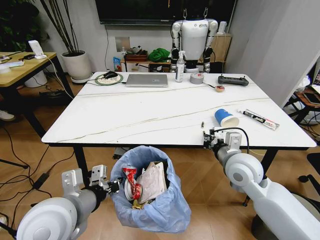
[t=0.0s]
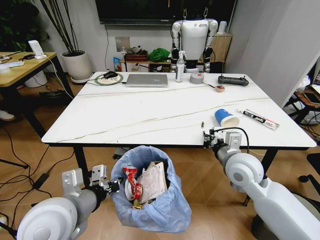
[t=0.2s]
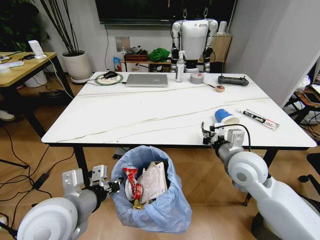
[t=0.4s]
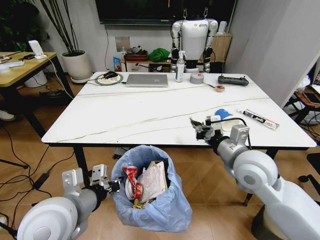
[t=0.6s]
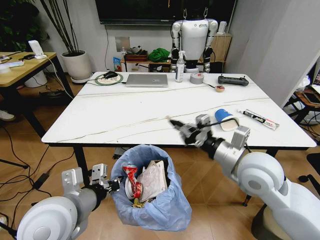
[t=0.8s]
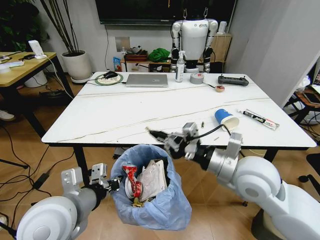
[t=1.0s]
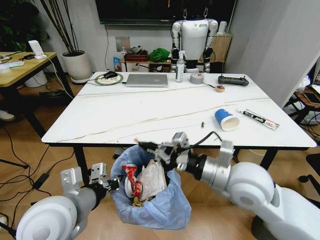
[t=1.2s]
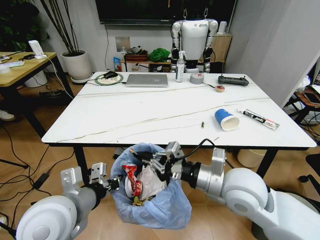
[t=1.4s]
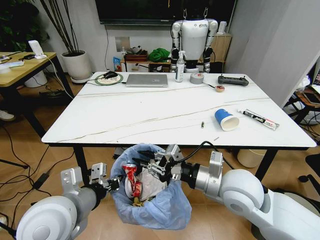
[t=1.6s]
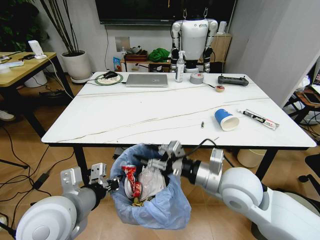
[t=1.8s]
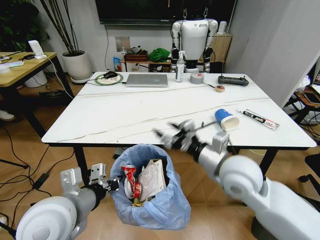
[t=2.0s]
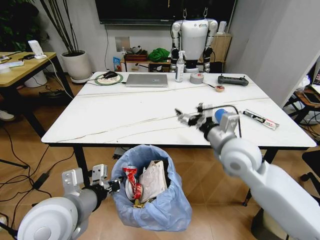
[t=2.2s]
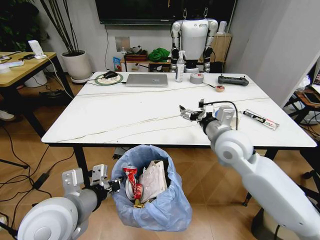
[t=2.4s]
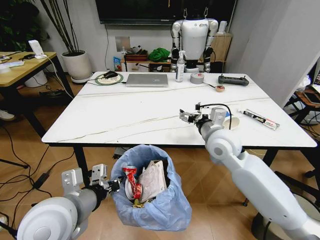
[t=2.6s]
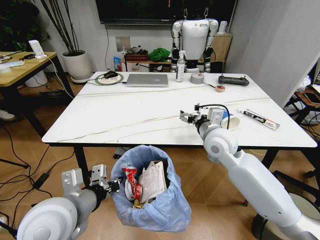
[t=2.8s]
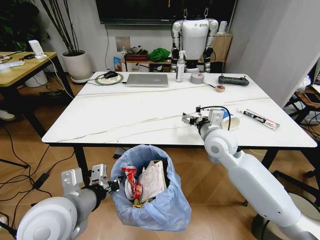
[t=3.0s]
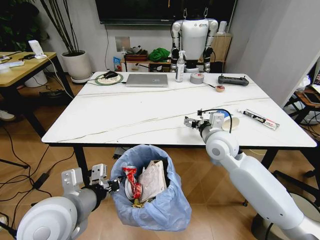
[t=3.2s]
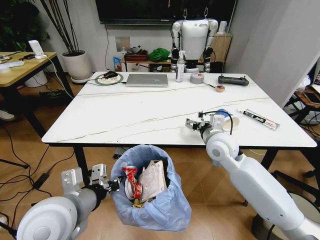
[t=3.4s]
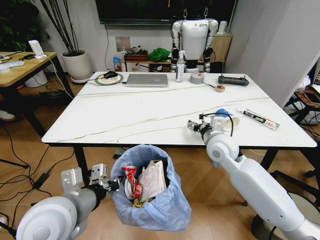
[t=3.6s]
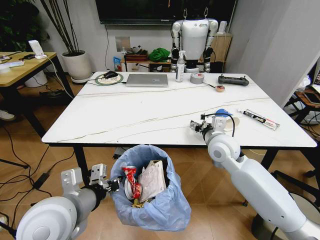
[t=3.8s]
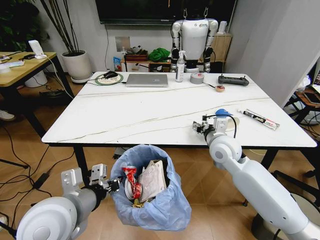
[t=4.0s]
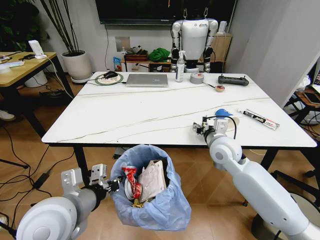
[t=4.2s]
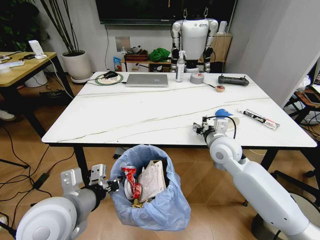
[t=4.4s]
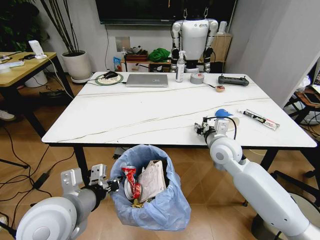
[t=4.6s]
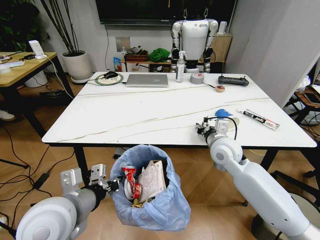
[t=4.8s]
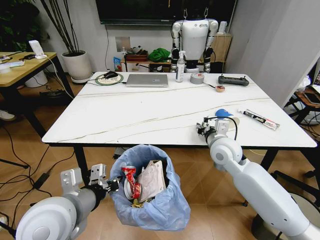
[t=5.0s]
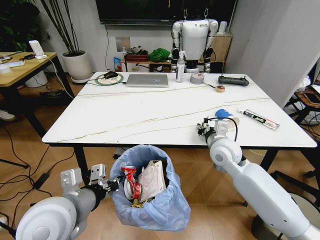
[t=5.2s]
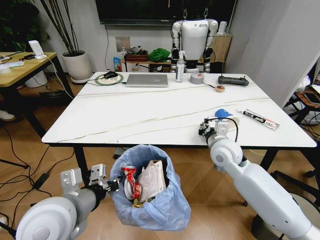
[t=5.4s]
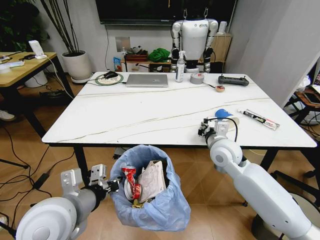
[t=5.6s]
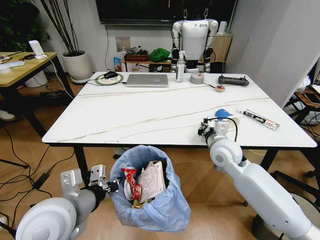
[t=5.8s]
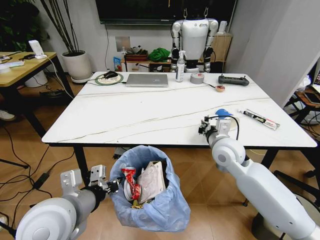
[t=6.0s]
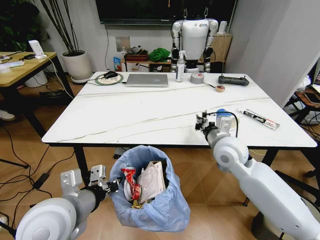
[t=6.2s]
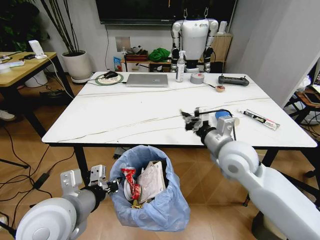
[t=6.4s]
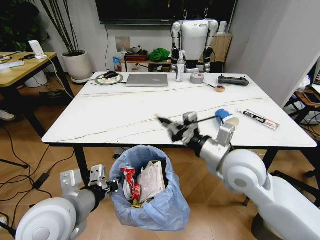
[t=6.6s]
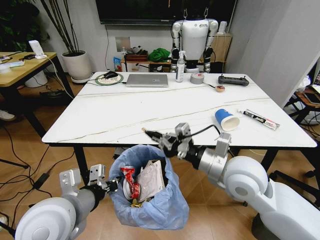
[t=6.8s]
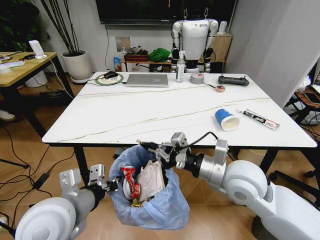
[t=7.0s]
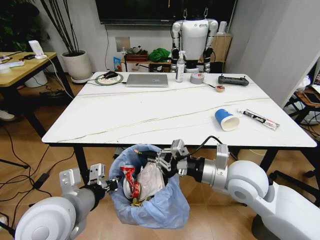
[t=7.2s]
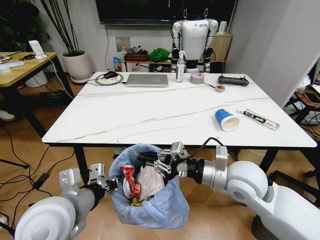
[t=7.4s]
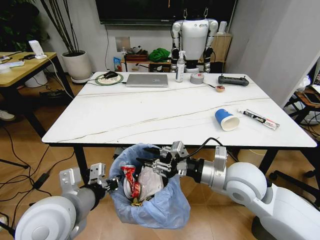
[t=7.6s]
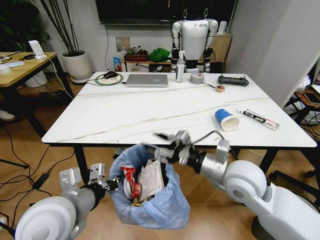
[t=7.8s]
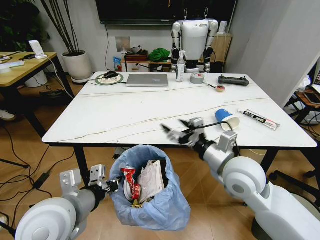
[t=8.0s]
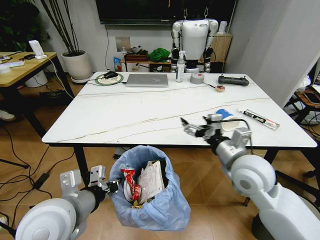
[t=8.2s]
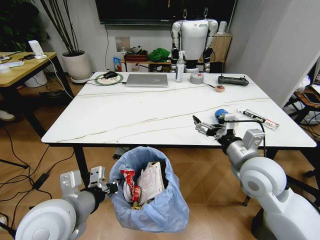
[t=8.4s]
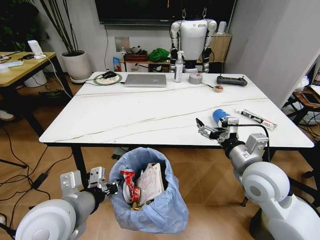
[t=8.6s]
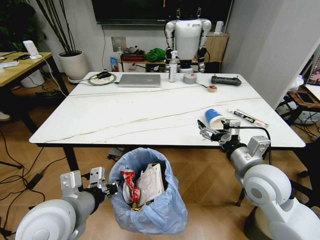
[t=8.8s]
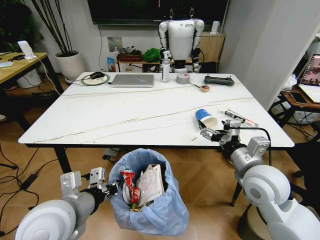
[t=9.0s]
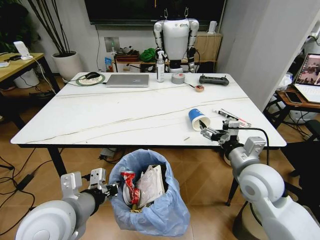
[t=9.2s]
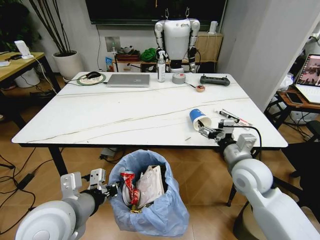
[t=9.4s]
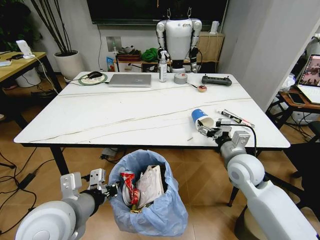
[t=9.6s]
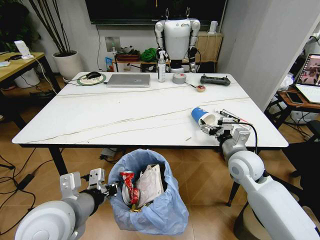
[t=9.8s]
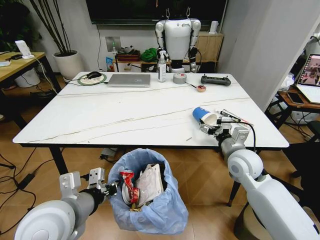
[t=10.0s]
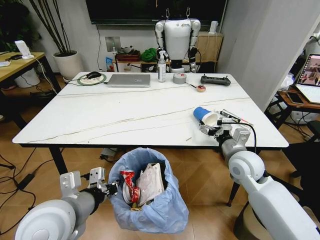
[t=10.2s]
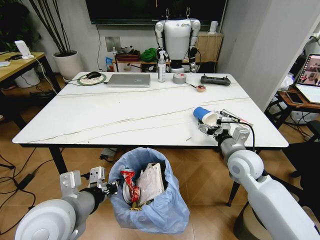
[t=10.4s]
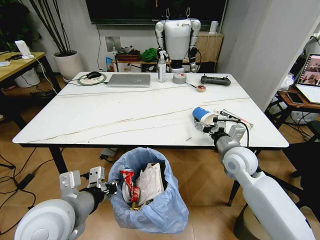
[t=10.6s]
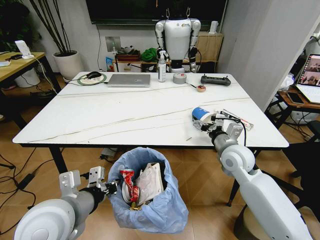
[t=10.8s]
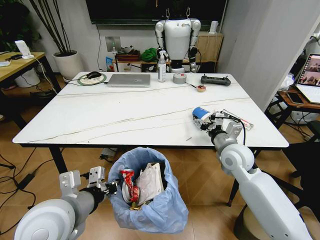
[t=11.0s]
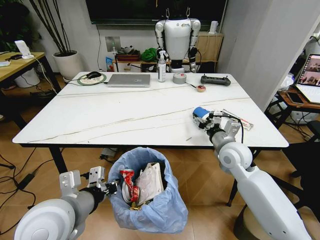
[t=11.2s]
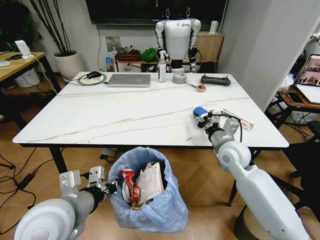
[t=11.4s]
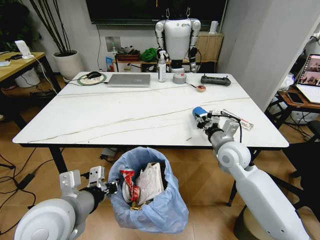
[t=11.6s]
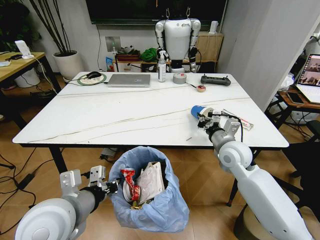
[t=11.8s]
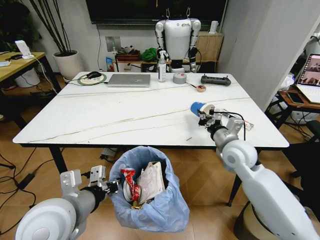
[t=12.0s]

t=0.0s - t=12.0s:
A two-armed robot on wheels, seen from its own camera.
Task of the whole recording: Pick up the trash bin and place the trash from the table into it.
t=0.0s - t=1.6s: The right gripper shifts some 5 cm backward.
t=1.6s - t=3.0s: The right gripper goes some 15 cm forward, and opens.
t=3.0s - t=4.4s: The right gripper closes up.
t=4.4s - t=6.0s: The right gripper closes up.
t=6.0s - t=7.6s: The right gripper heads backward, covering roughly 10 cm, and opens.
t=7.6s - t=9.0s: The right gripper travels to the right by some 5 cm, and opens up.
t=9.0s - t=10.4s: The right gripper shifts some 10 cm forward.
t=10.4s - t=12.0s: The right gripper closes up.

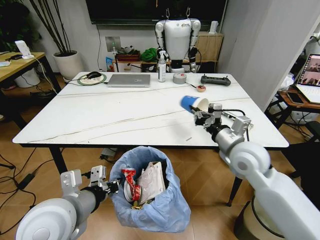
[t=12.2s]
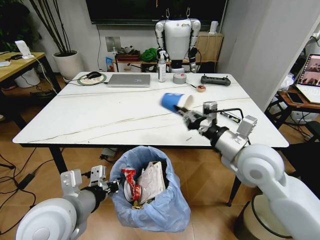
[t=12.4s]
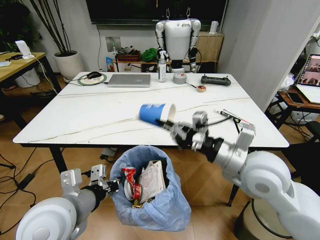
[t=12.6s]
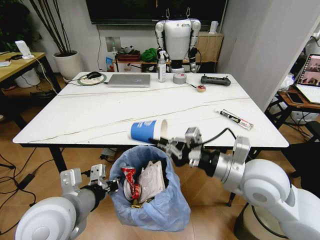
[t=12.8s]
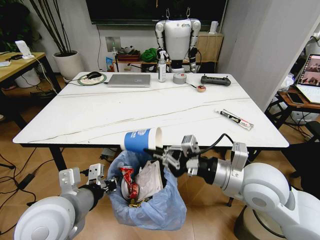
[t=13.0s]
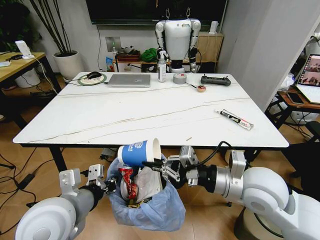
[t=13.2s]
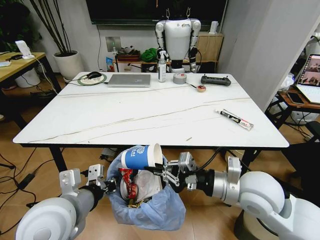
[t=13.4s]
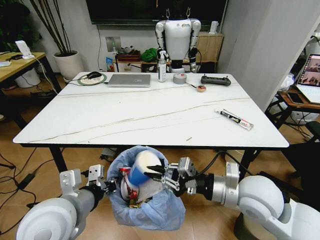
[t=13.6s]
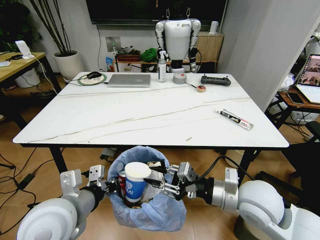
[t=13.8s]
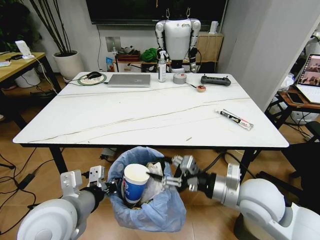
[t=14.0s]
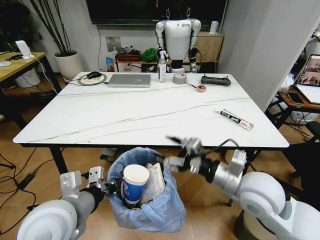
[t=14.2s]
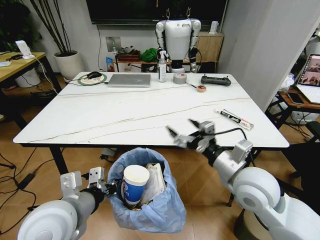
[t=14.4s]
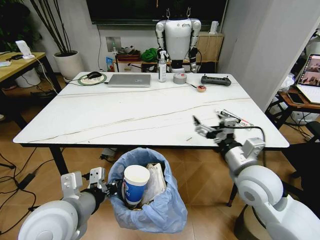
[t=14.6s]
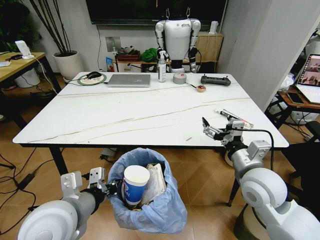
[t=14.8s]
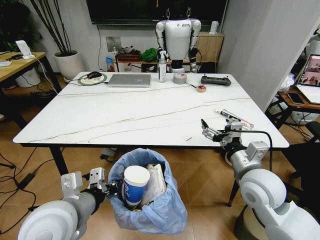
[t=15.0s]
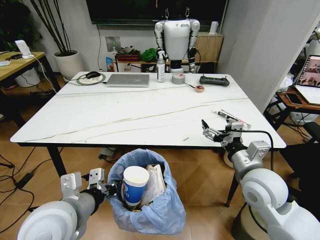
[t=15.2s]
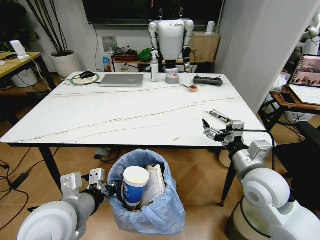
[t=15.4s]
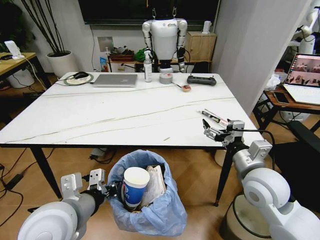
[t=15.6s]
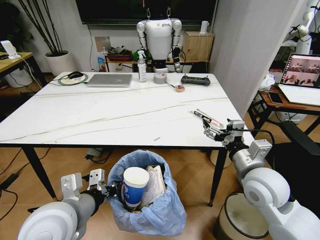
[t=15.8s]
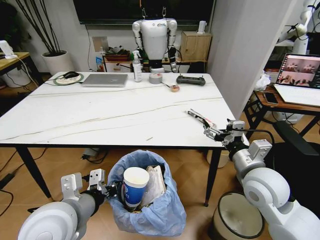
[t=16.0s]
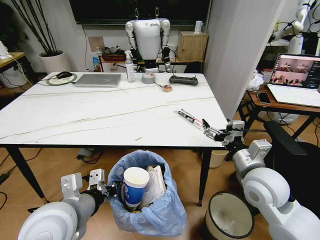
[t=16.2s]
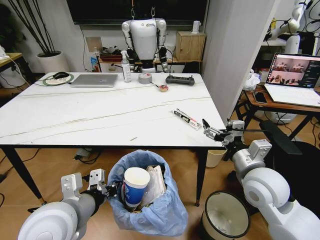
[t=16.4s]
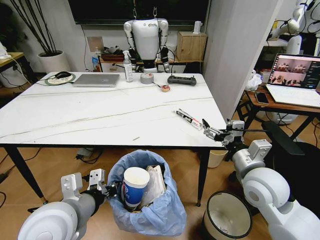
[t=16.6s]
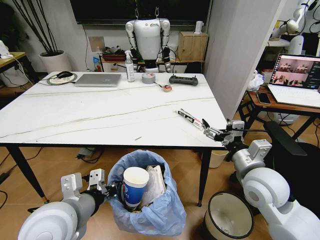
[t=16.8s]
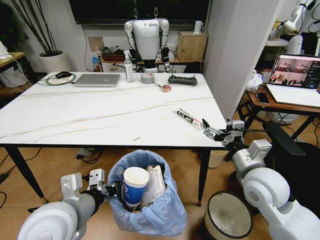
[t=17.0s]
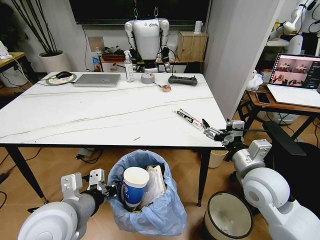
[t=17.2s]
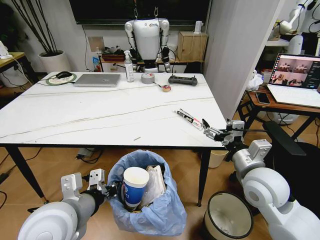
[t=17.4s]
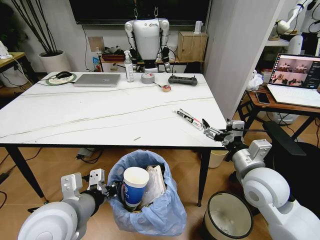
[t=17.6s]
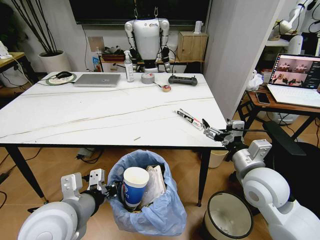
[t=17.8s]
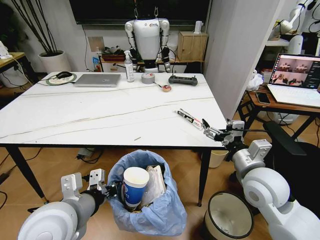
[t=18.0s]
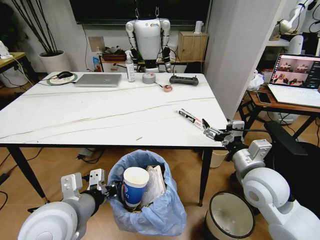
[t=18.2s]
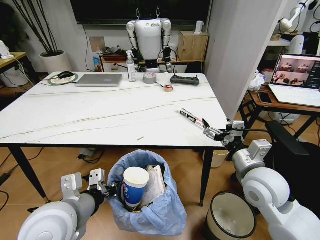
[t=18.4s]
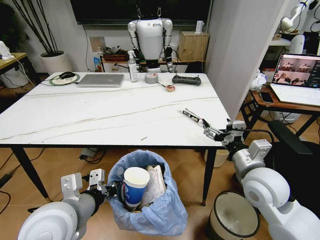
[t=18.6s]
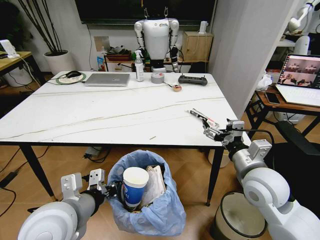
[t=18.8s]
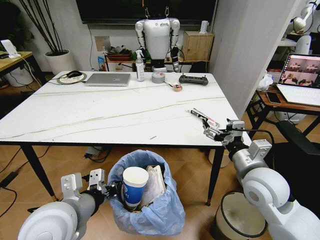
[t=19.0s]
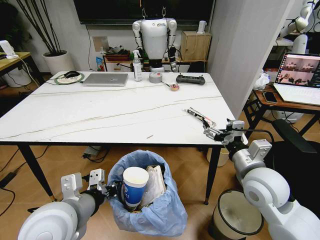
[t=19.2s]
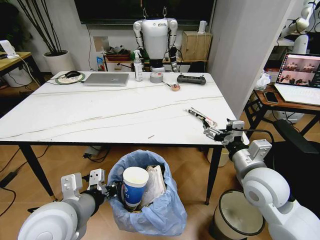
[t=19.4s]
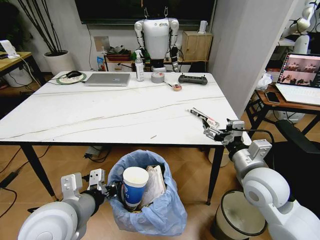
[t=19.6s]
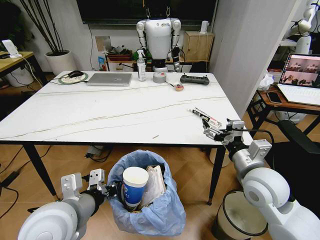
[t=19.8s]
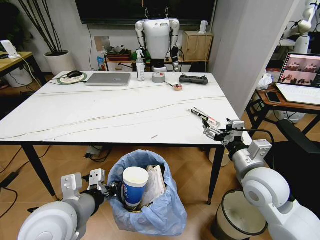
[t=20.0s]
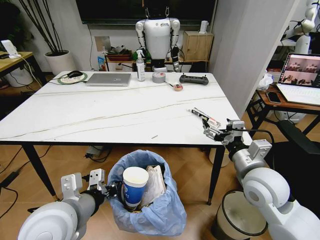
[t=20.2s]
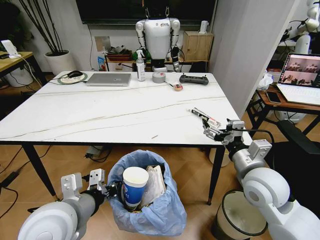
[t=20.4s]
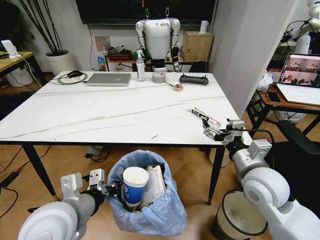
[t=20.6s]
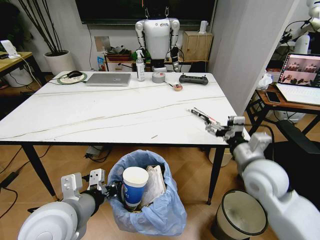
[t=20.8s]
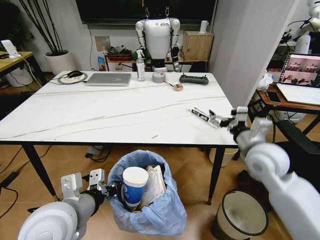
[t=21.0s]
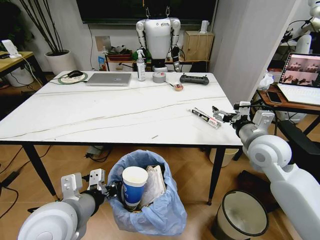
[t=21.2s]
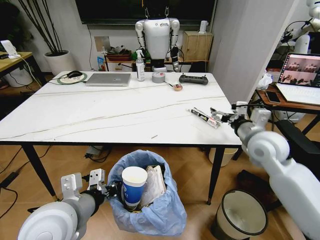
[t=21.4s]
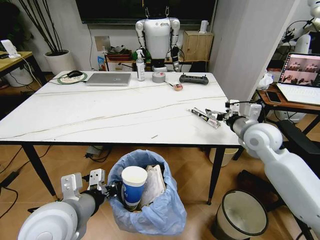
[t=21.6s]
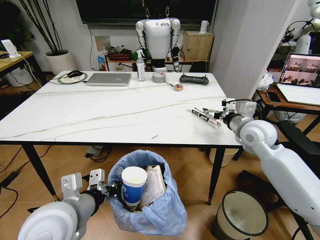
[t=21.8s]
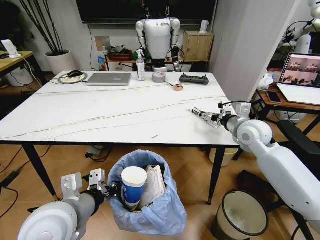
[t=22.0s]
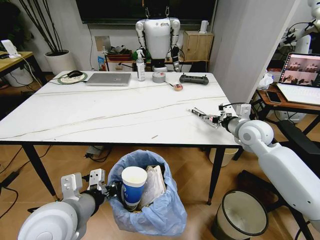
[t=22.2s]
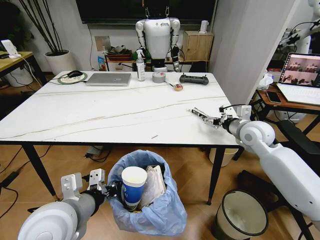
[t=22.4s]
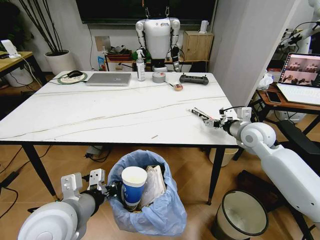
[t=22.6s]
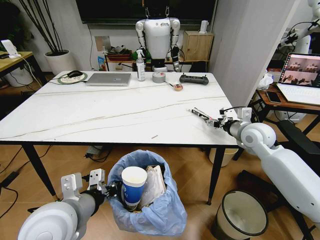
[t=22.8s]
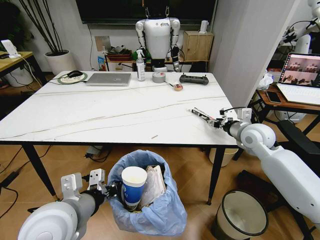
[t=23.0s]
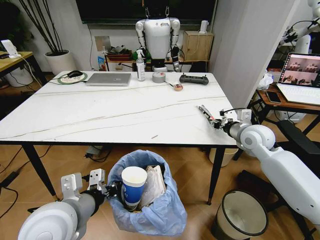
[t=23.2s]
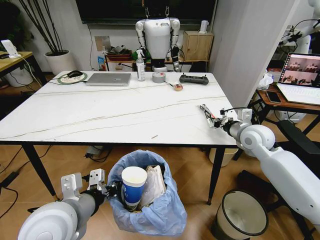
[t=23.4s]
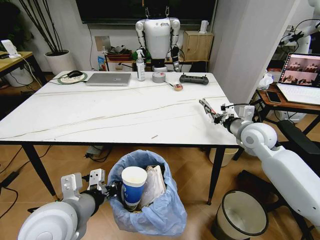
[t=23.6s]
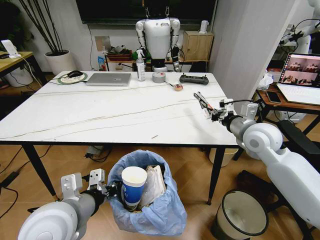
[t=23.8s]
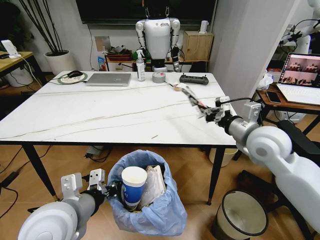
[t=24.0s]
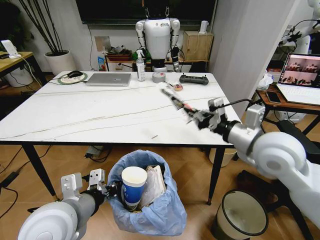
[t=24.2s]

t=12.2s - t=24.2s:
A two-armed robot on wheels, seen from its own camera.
Task of the whole recording: Pick up the trash bin and place the trash from the table into it.
t=12.2s - t=13.8s: The right gripper shifts roughly 10 cm backward, and opens its fingers.
t=13.8s - t=15.2s: The right gripper opens up.
t=16.6s - t=18.2s: The two grippers keep their place.
t=19.8s - t=21.2s: The right gripper goes some 10 cm forward.
t=21.2s - t=22.6s: The right gripper moves forward, some 10 cm.
t=22.6s - t=24.2s: The right gripper is displaced backward, upward and to the left by some 15 cm, and closes its fingers.
